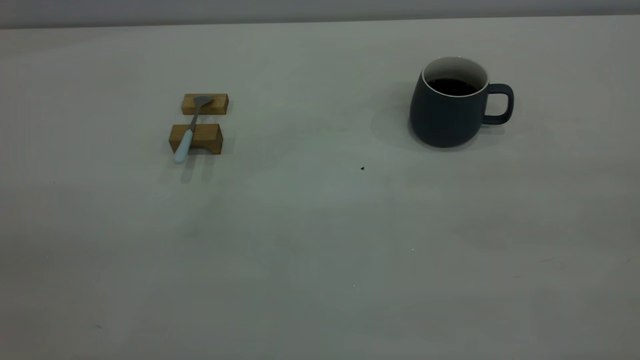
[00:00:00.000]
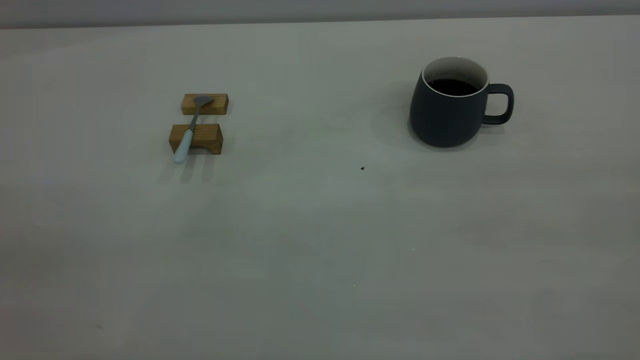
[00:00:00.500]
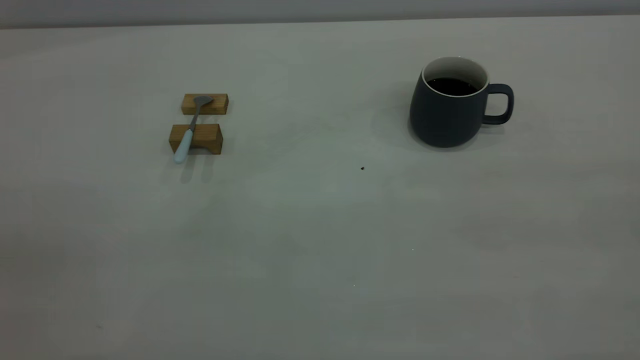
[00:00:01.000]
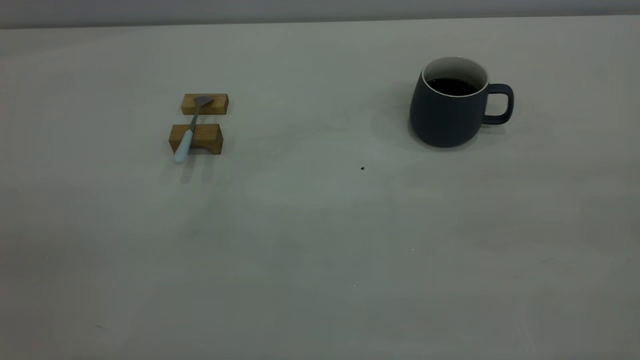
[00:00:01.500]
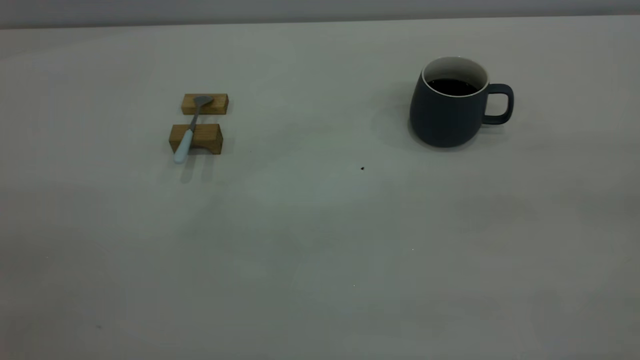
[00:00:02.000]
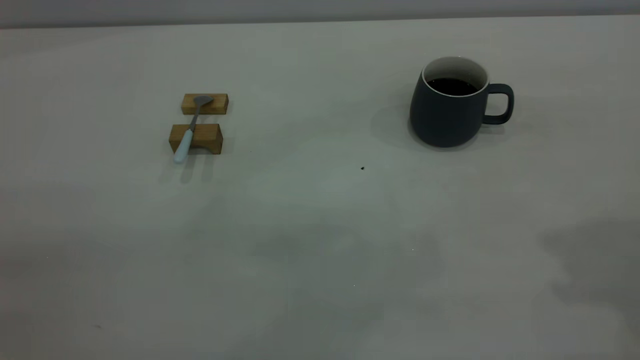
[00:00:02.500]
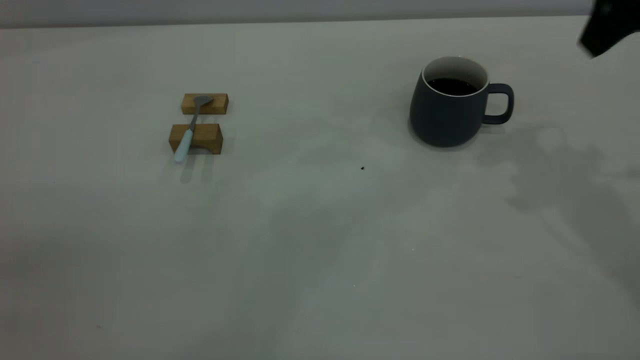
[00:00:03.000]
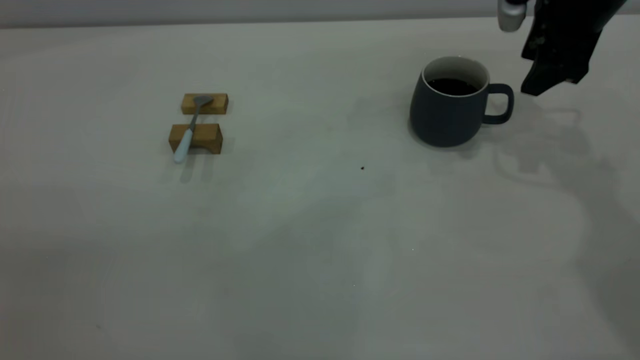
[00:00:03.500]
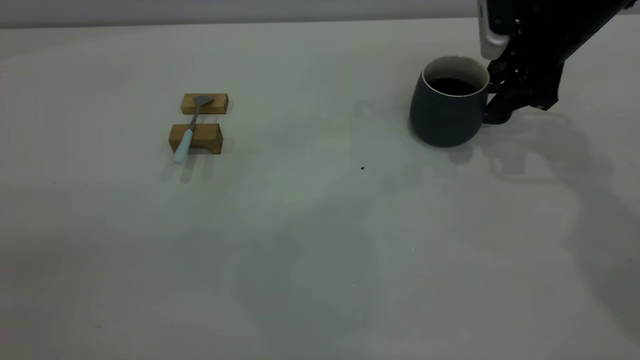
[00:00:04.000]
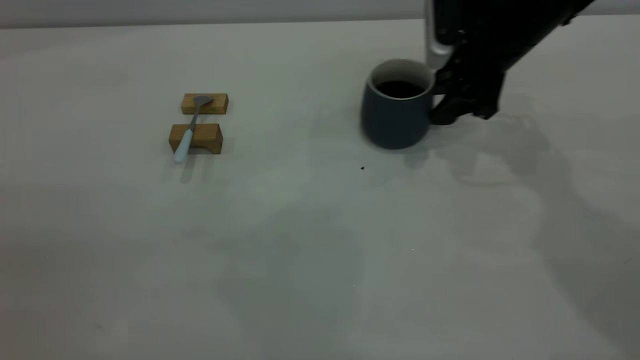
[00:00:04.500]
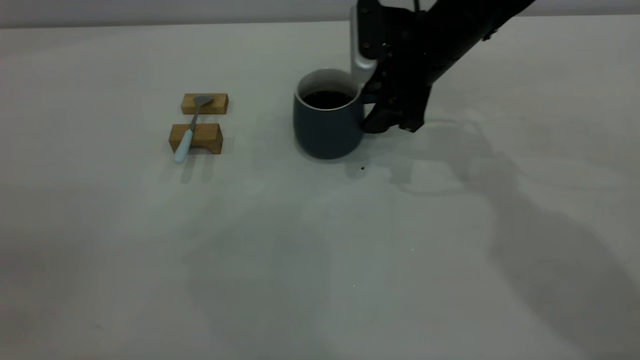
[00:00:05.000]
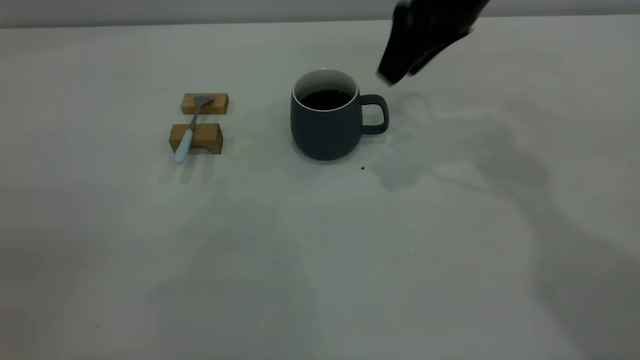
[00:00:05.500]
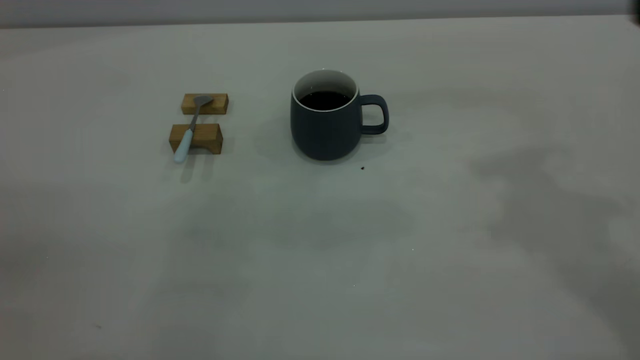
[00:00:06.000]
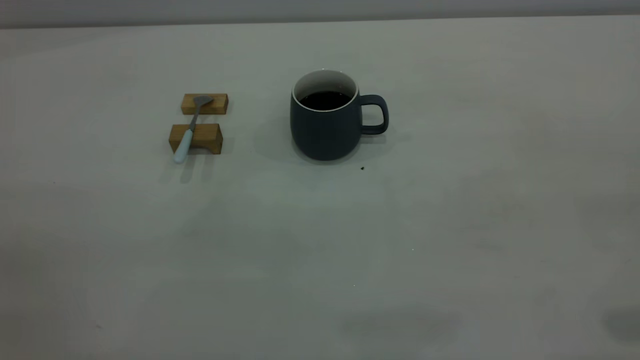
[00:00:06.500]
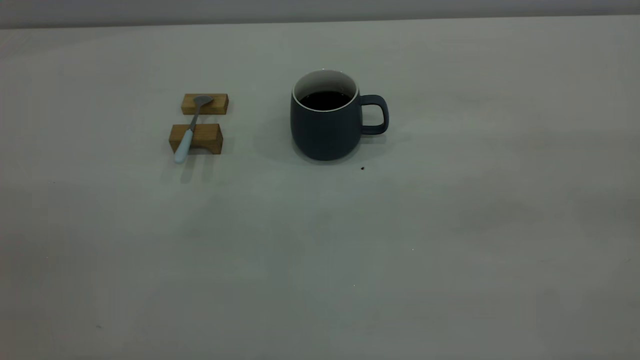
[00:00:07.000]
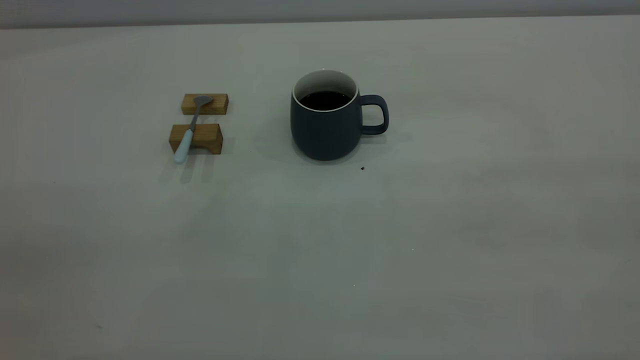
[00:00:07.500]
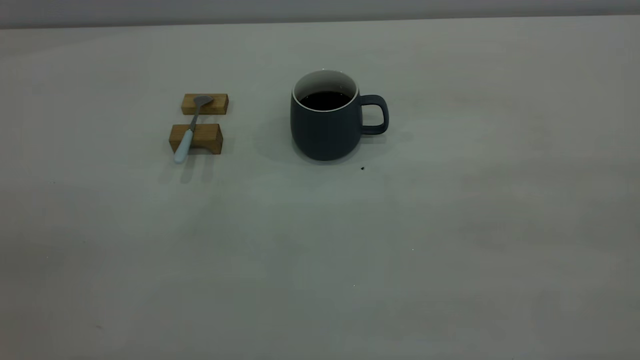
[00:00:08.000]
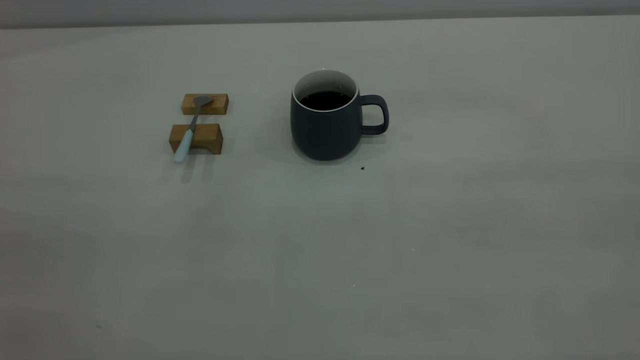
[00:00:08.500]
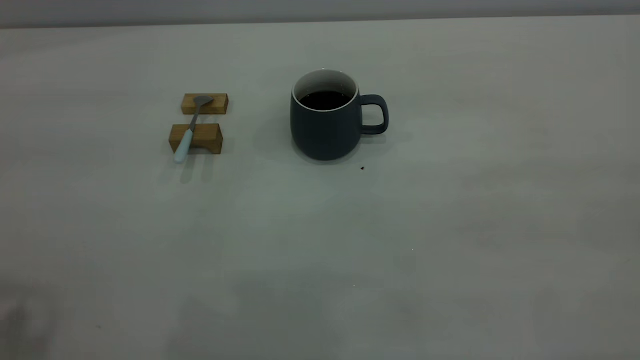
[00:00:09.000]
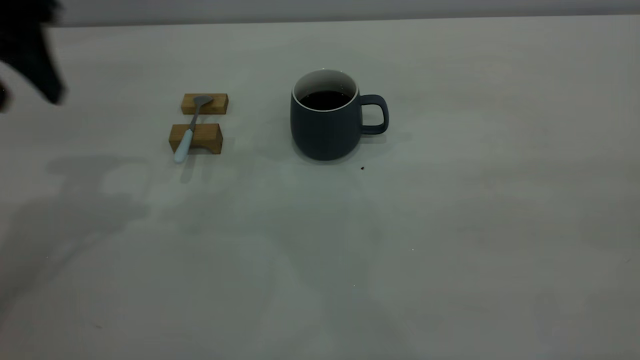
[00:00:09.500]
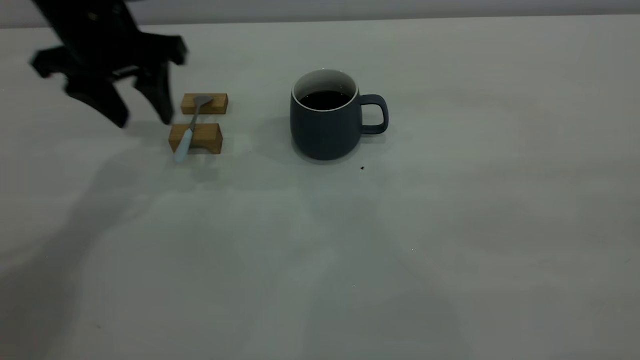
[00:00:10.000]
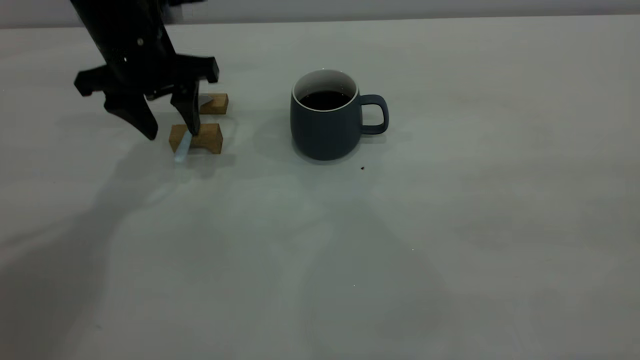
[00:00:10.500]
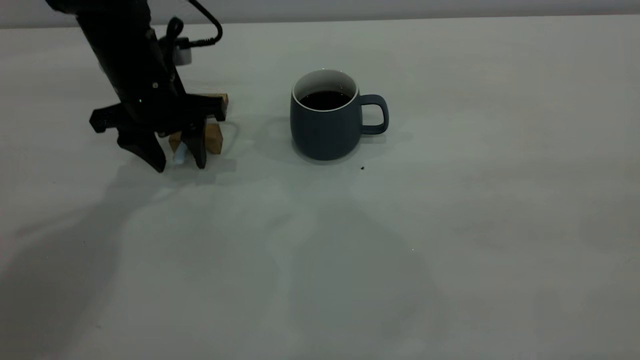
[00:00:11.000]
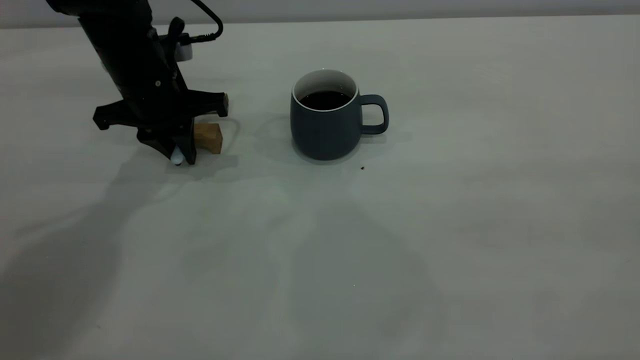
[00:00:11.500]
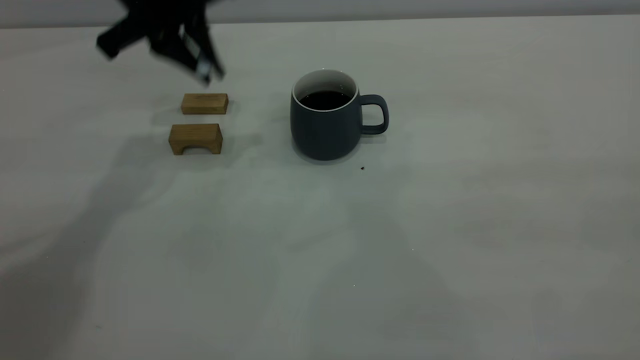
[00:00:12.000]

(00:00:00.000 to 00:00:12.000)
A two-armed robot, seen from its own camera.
Step, 00:00:00.000 - 00:00:05.500: Move the cup with coffee to the center of view.
Step, 00:00:06.000 - 00:00:11.500: Pick up the spoon.
00:00:02.000 - 00:00:04.000: The right gripper shifts some 50 cm forward and downward.
00:00:04.000 - 00:00:06.000: The right gripper heads upward and backward, covering roughly 25 cm.
00:00:08.000 - 00:00:10.000: The left gripper travels forward and downward by approximately 40 cm, and opens.
00:00:10.000 - 00:00:12.000: The left gripper is displaced upward by approximately 5 cm, and closes up.

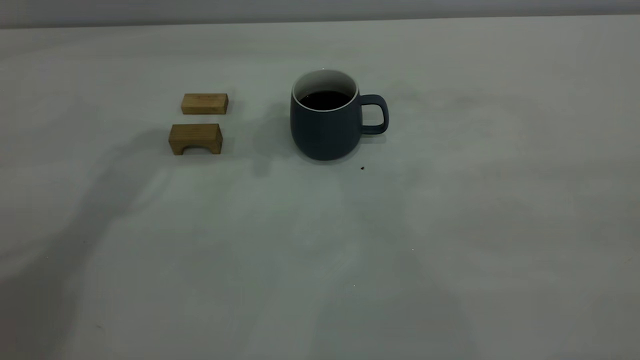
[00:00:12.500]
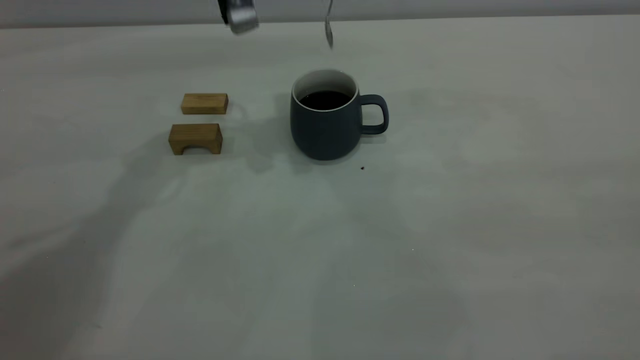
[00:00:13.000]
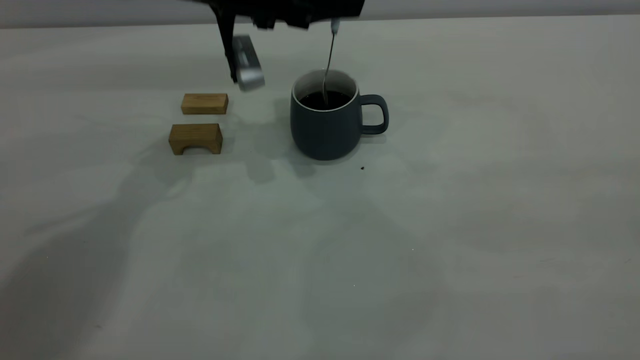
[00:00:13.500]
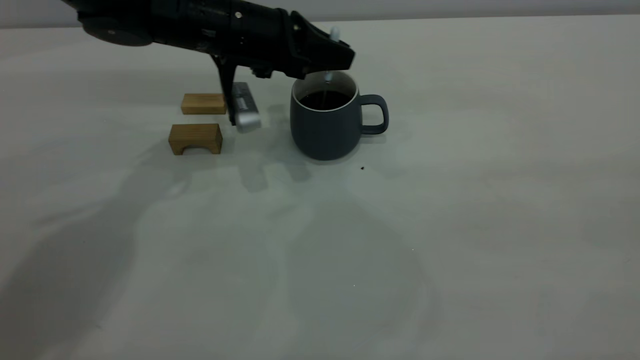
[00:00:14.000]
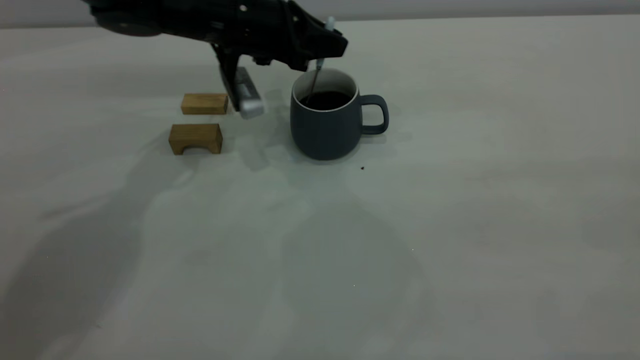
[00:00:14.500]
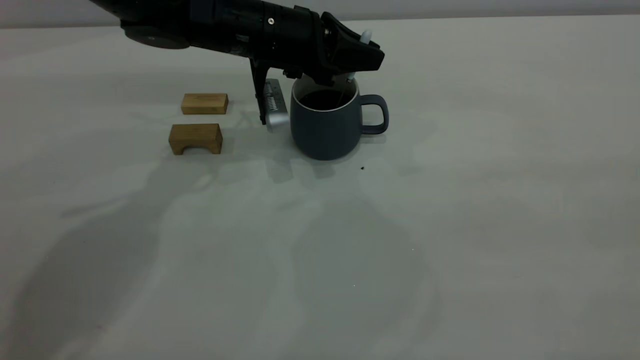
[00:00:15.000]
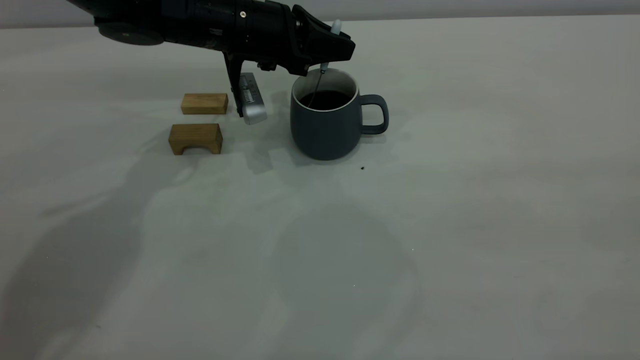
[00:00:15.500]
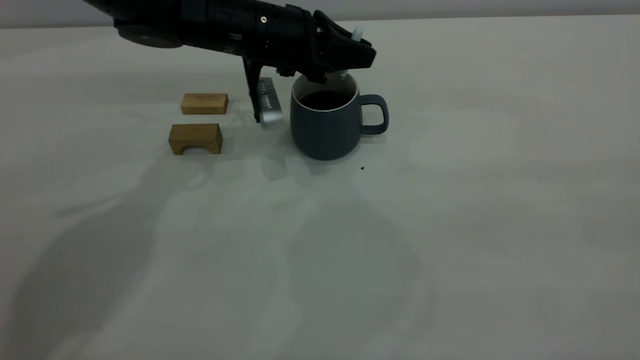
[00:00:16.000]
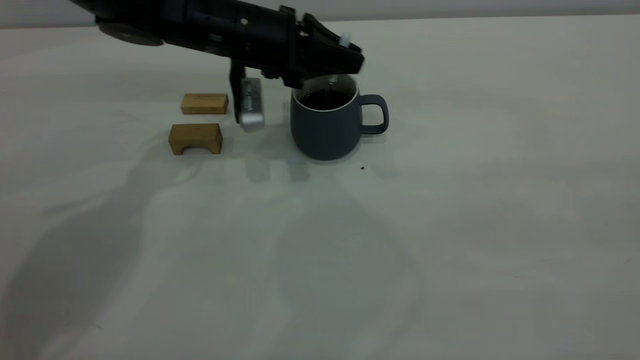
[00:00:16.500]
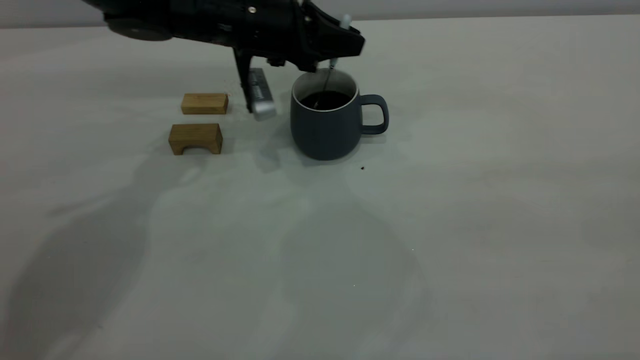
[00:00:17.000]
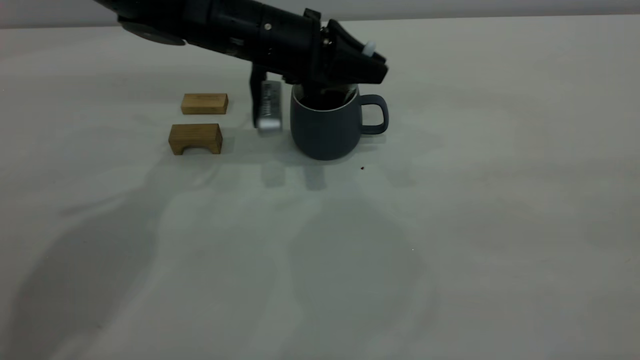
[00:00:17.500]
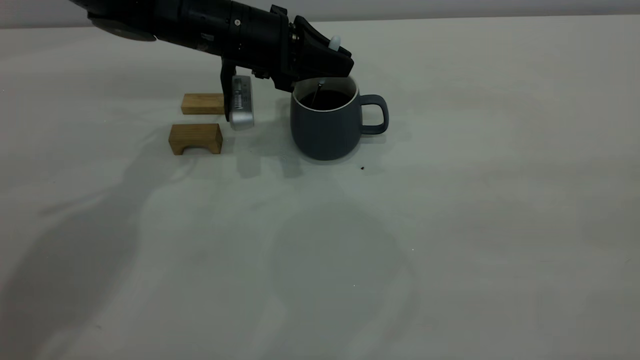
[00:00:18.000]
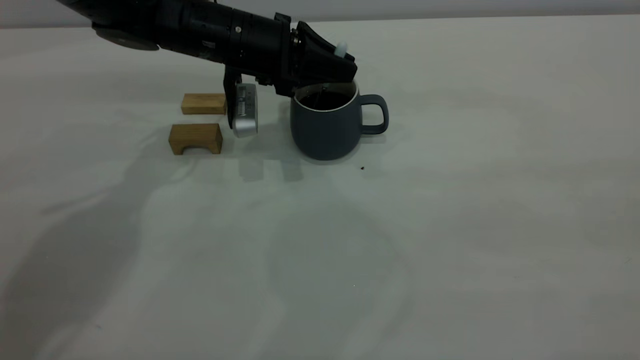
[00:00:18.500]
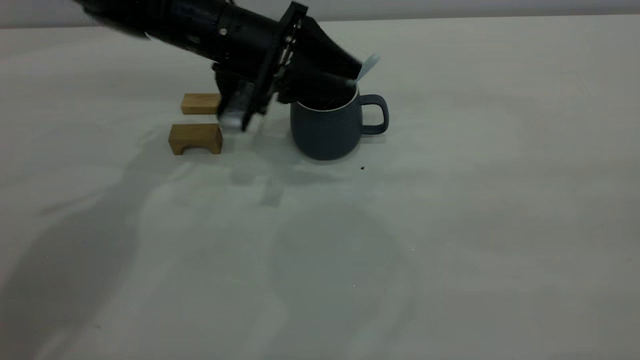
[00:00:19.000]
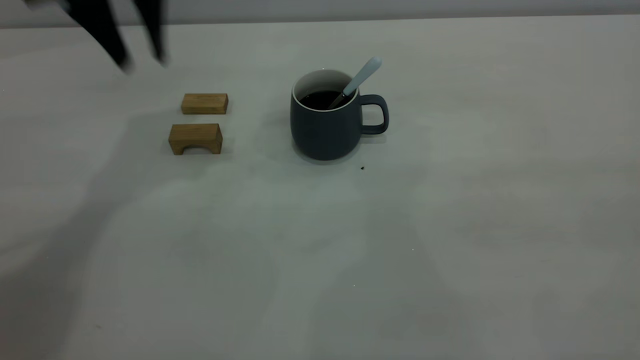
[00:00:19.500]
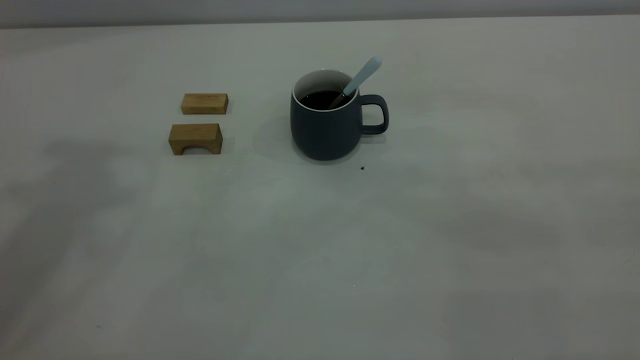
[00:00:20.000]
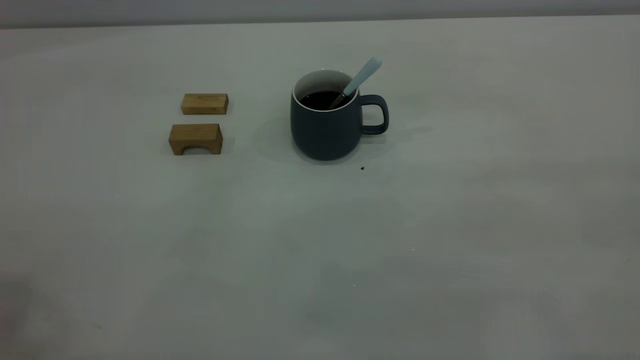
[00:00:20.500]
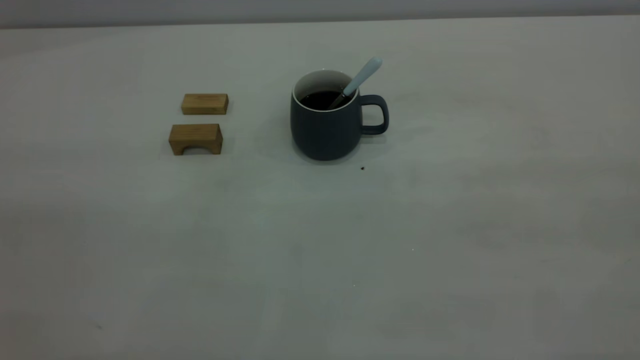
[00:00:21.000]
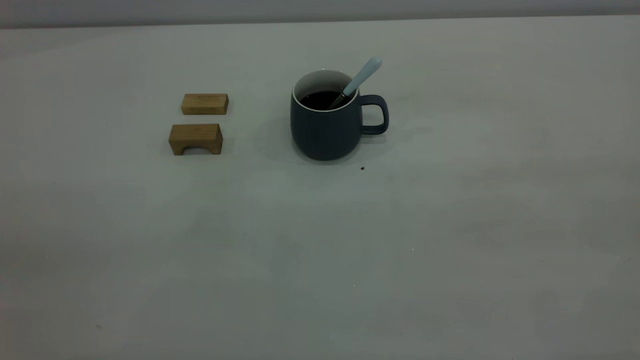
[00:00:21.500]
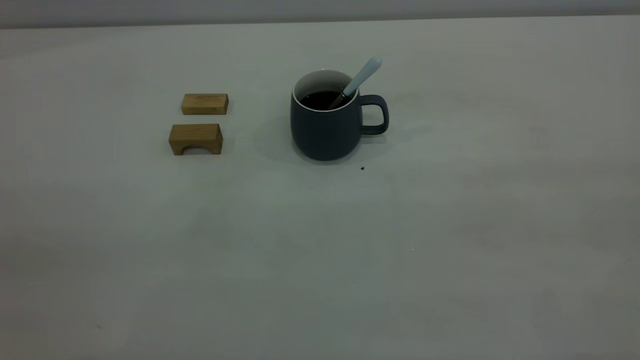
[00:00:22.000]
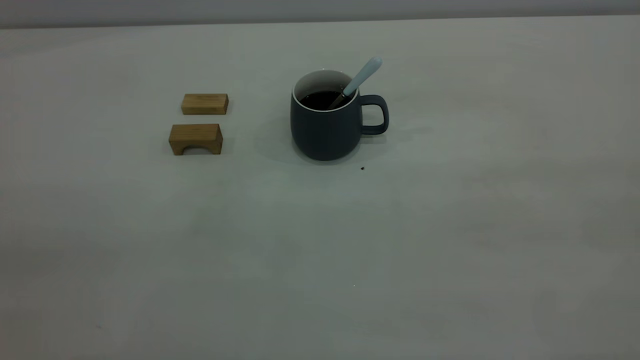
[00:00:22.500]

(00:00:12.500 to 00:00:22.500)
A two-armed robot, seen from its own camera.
Step, 00:00:12.500 - 00:00:19.000: Stir the coffee in the cup.
00:00:12.500 - 00:00:14.500: The left gripper shifts roughly 15 cm downward.
00:00:14.500 - 00:00:18.500: There are only small adjustments of the grippers.
00:00:18.500 - 00:00:20.500: The left gripper travels upward, backward and to the left by roughly 50 cm.
